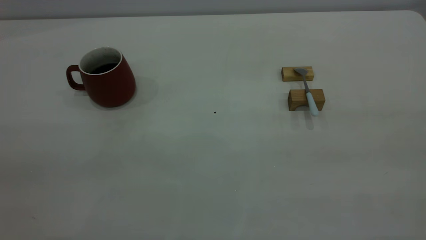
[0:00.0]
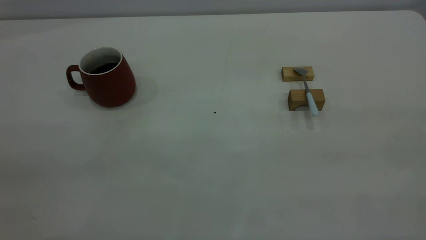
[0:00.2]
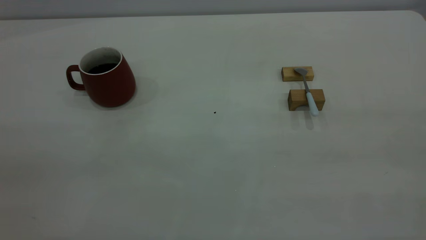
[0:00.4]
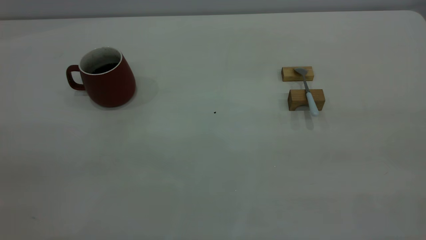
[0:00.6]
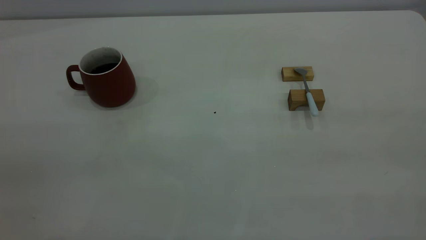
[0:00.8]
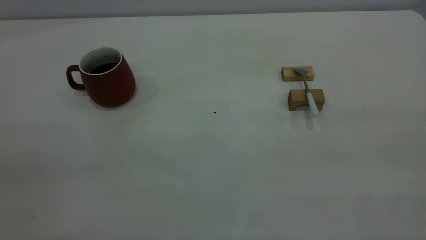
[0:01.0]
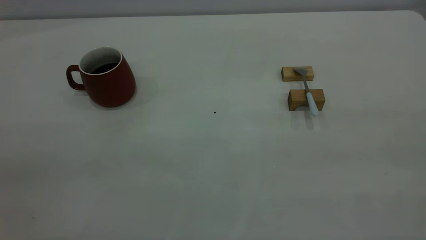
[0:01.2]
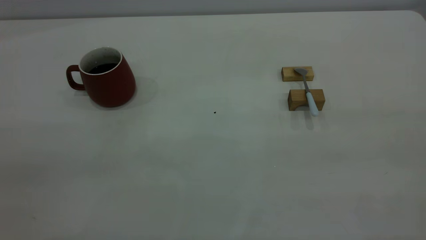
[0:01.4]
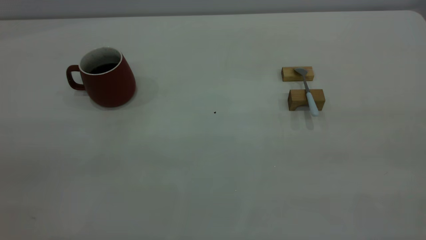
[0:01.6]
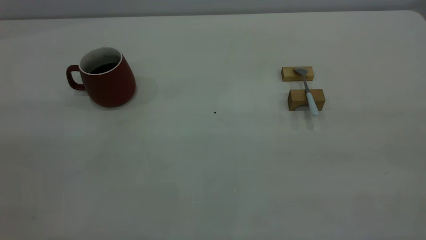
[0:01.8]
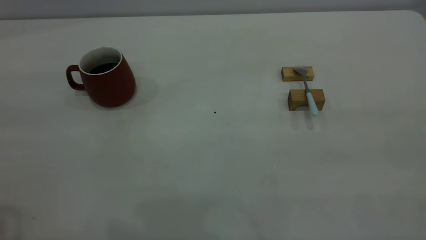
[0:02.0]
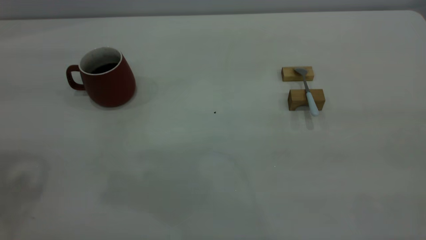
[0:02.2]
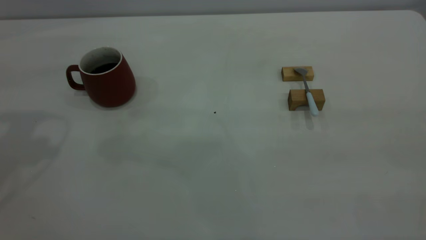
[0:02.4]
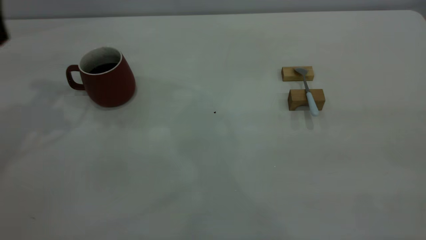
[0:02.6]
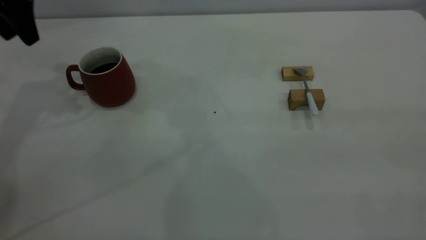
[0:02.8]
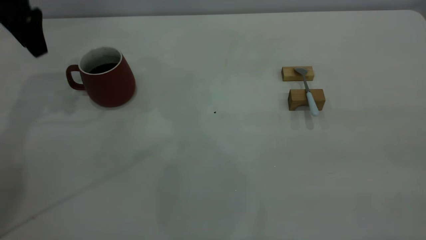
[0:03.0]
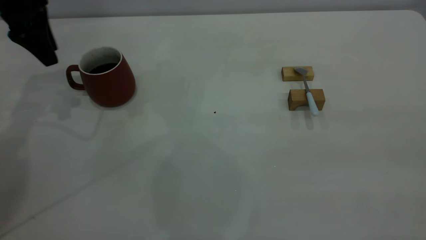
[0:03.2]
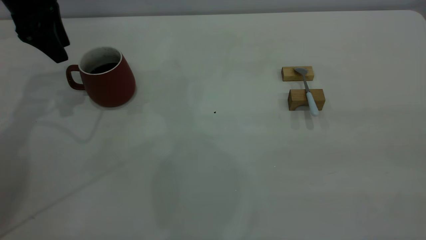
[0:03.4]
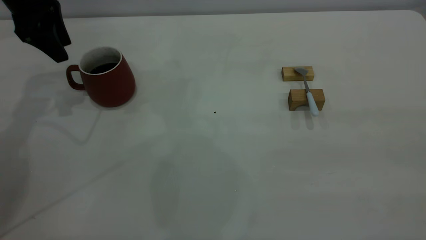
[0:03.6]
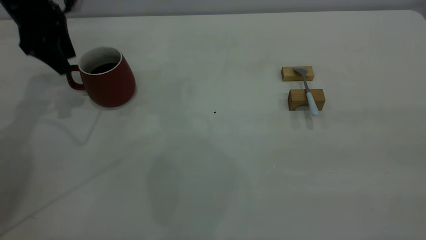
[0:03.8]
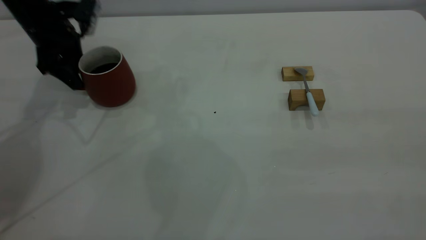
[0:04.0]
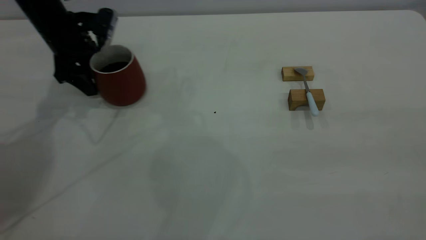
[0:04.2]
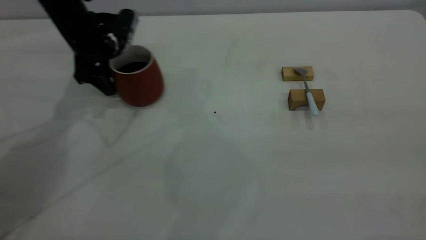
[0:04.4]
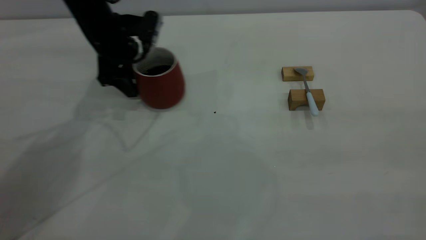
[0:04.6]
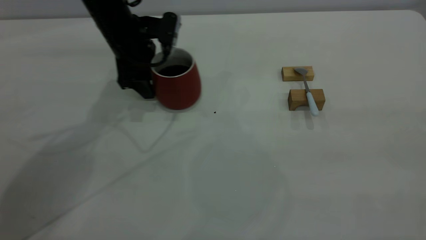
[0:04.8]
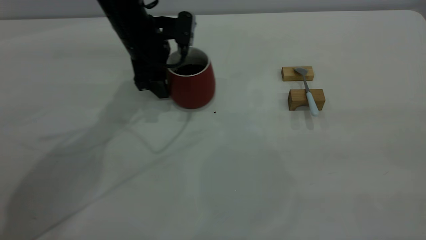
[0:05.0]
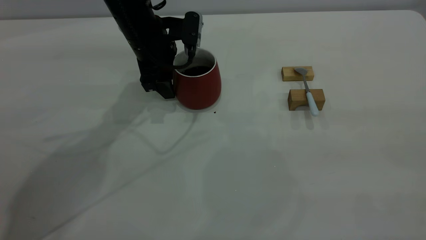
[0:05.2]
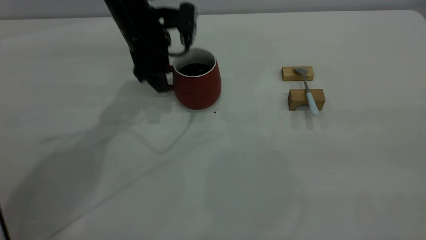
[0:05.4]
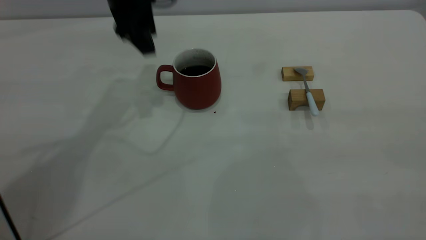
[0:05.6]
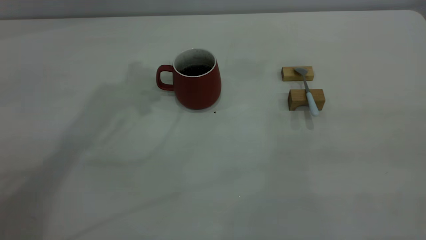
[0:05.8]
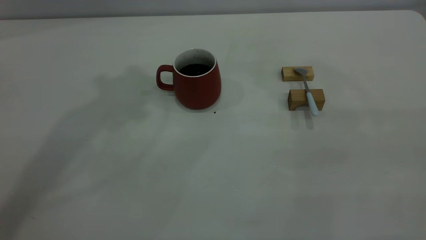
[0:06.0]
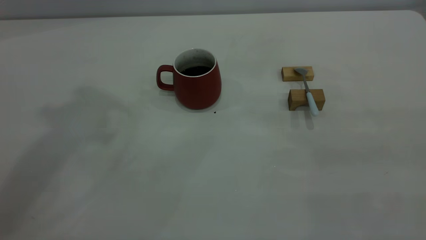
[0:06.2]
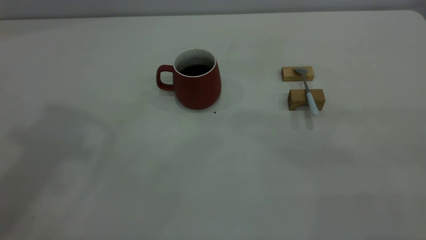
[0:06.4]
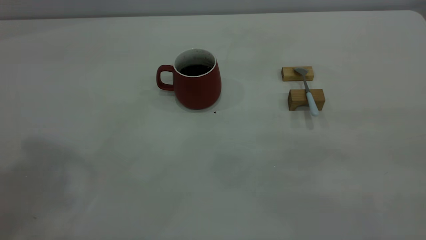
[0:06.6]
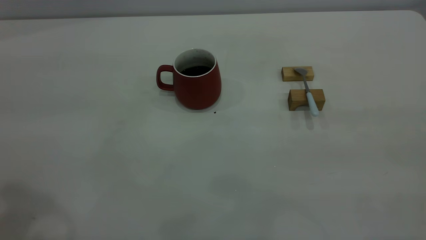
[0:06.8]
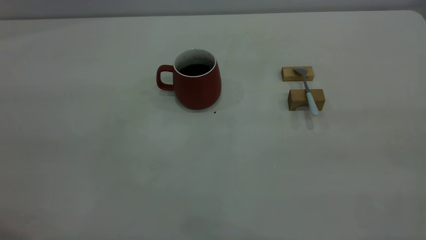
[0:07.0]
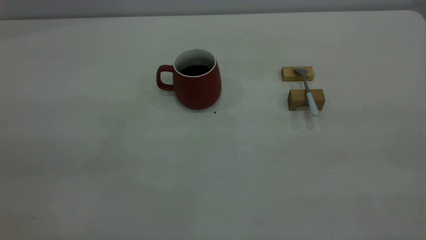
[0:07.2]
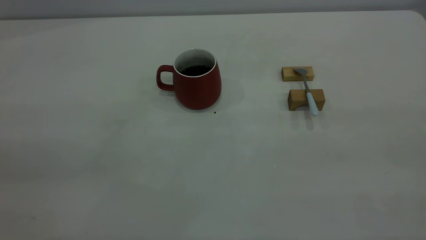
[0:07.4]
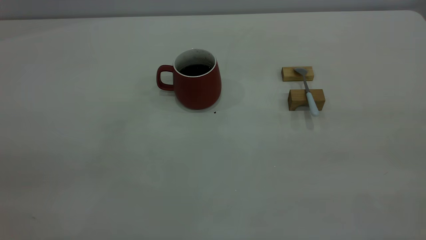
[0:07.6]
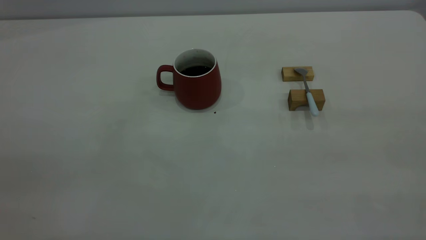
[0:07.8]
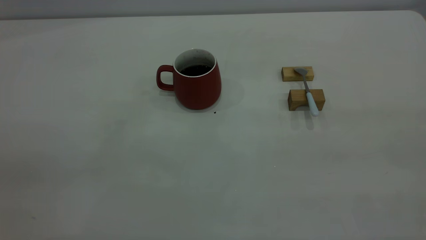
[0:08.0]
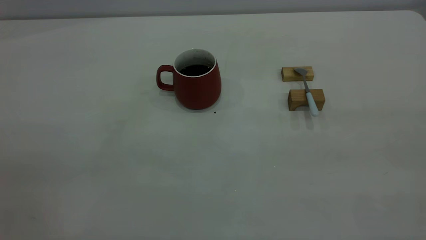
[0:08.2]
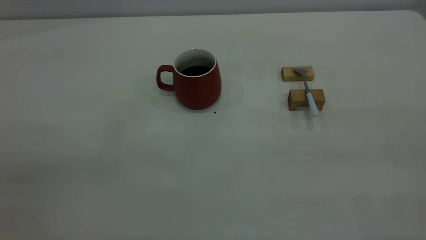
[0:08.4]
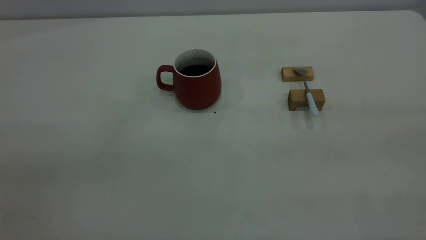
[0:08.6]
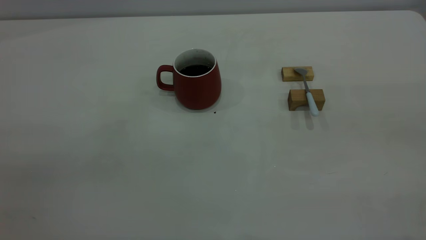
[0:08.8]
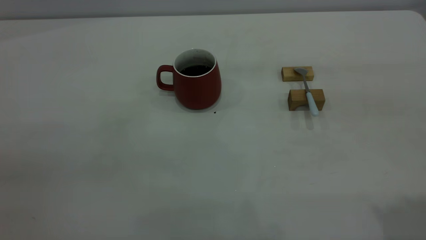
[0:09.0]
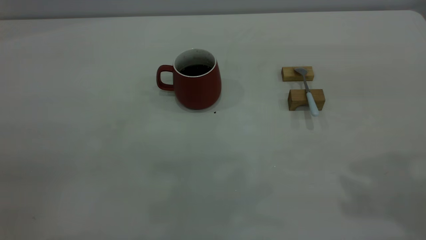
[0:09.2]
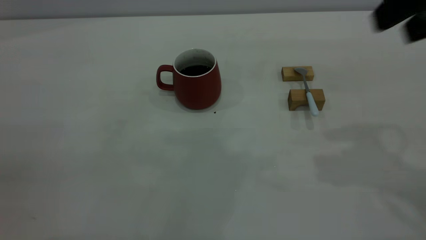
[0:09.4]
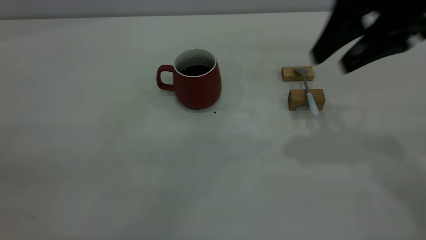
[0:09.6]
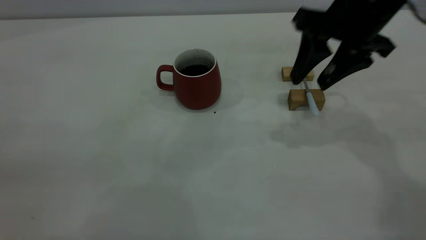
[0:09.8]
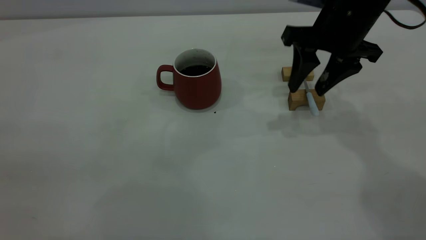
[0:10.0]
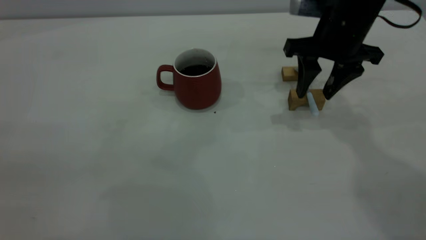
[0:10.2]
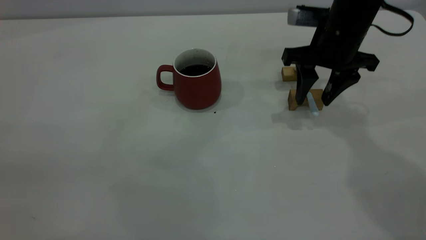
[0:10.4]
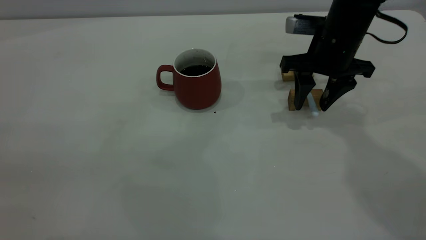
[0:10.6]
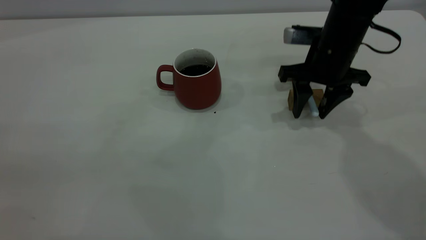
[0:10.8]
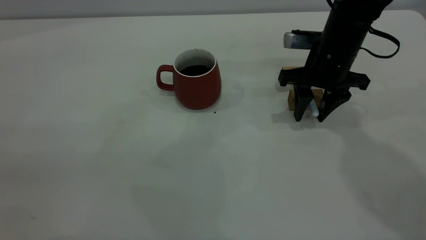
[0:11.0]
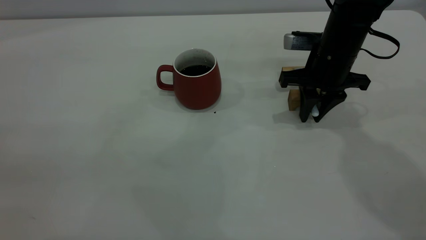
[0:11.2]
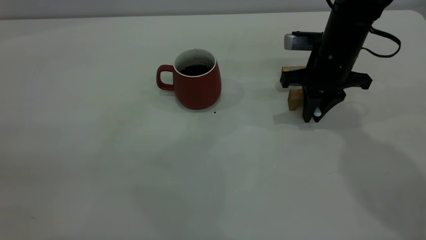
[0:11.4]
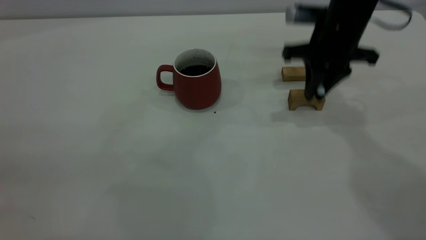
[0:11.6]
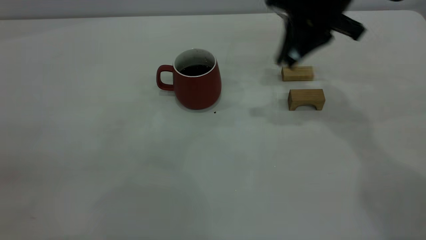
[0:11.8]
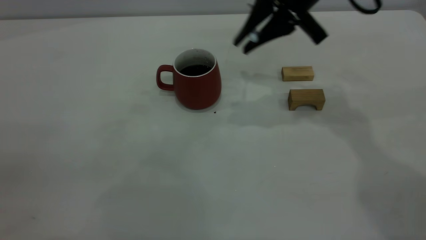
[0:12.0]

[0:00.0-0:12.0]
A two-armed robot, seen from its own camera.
Step, 0:00.0 to 0:05.4: Move the cup with coffee to the center of view.
Step, 0:05.6 to 0:11.6: Pick up the spoon.
0:01.6 to 0:03.0: The left gripper goes about 50 cm forward.
0:03.0 to 0:04.4: The left gripper goes approximately 15 cm downward and to the right.
0:04.4 to 0:06.0: The left gripper goes roughly 35 cm upward.
0:09.0 to 0:10.4: The right gripper heads forward and downward, covering roughly 35 cm.
0:10.4 to 0:12.0: The right gripper heads upward and to the left, covering about 10 cm, and closes up.

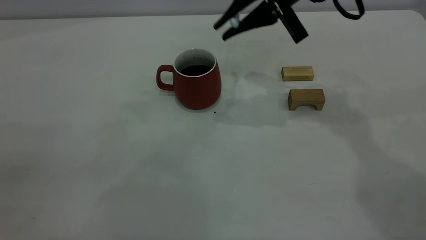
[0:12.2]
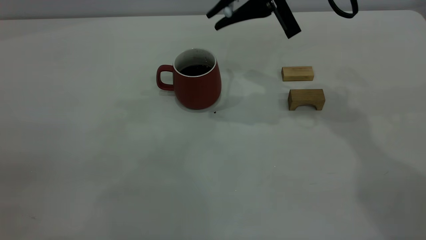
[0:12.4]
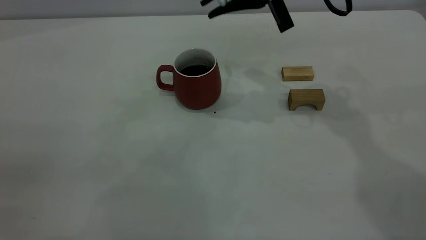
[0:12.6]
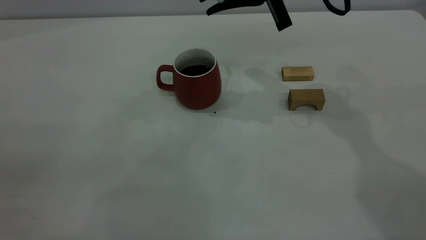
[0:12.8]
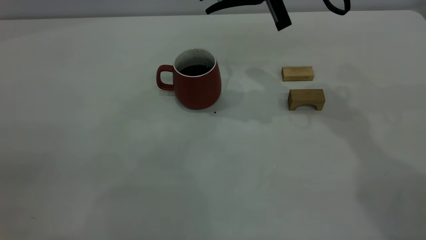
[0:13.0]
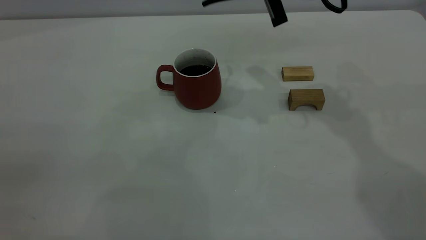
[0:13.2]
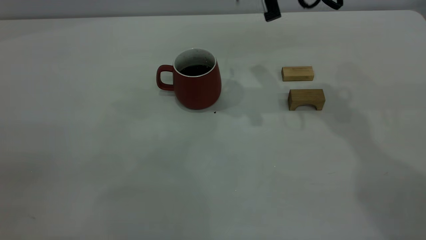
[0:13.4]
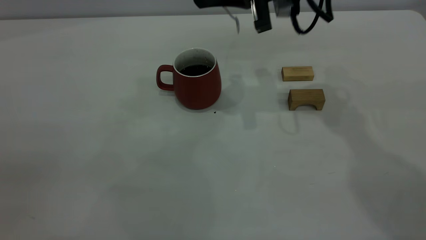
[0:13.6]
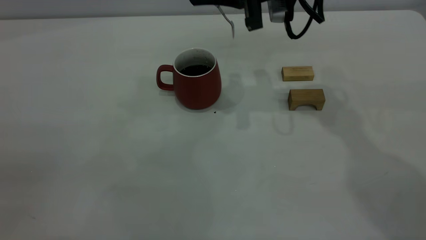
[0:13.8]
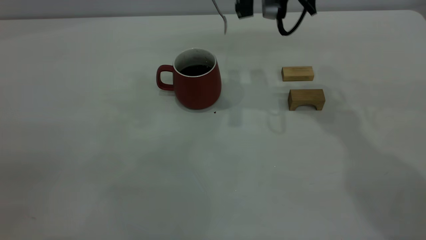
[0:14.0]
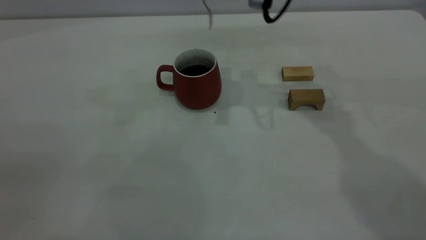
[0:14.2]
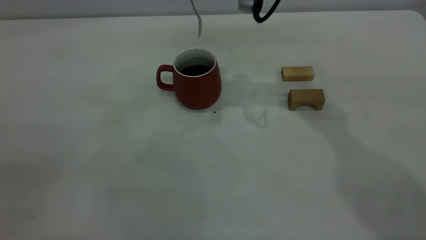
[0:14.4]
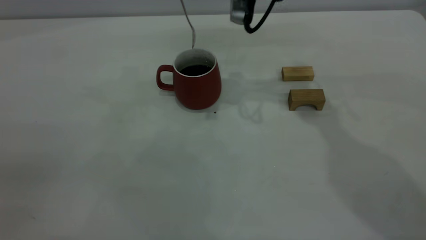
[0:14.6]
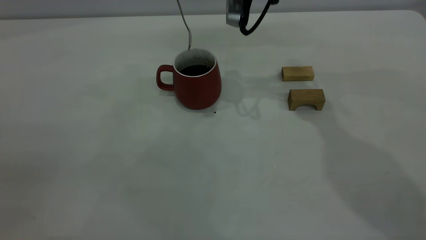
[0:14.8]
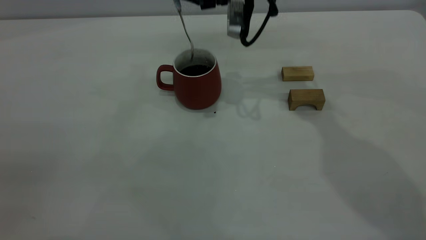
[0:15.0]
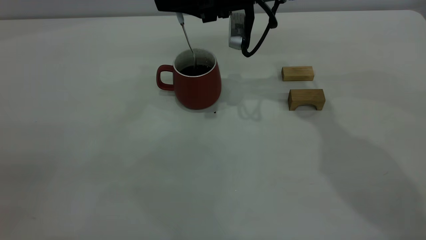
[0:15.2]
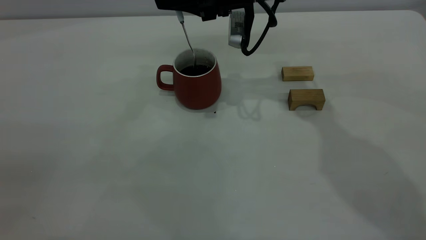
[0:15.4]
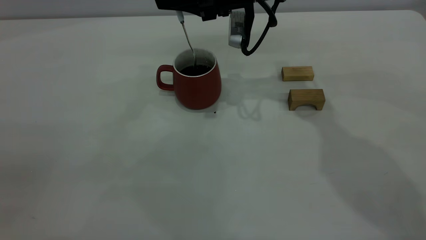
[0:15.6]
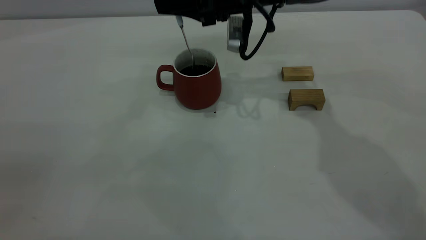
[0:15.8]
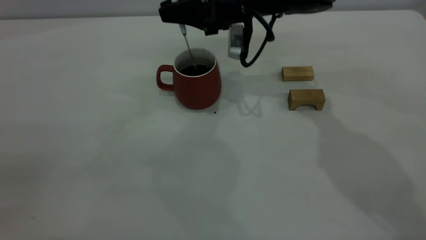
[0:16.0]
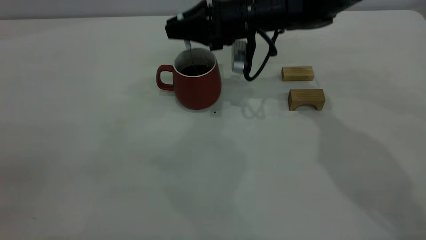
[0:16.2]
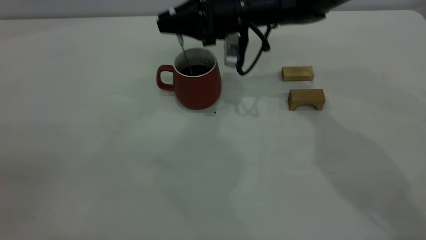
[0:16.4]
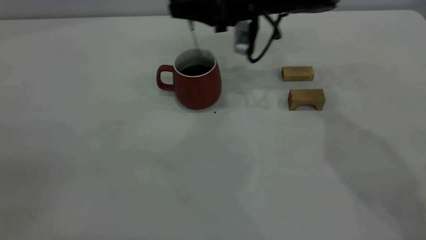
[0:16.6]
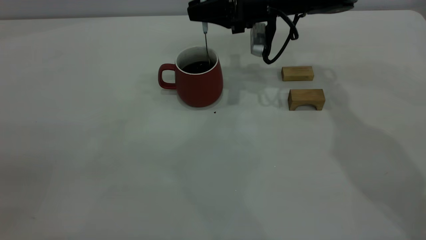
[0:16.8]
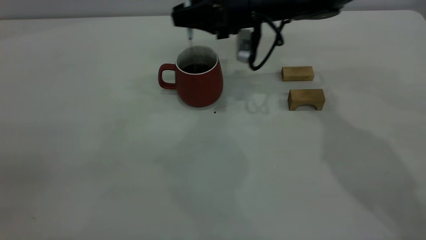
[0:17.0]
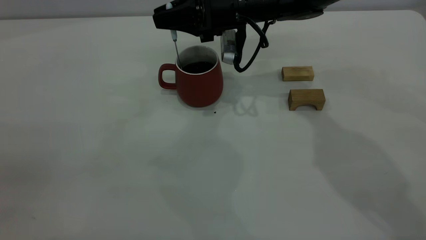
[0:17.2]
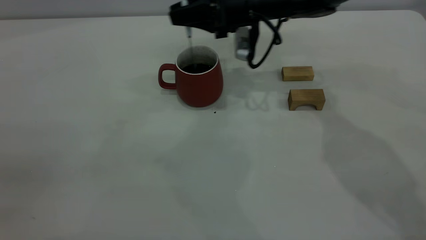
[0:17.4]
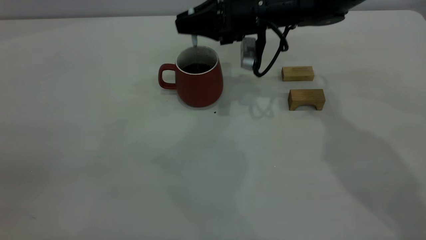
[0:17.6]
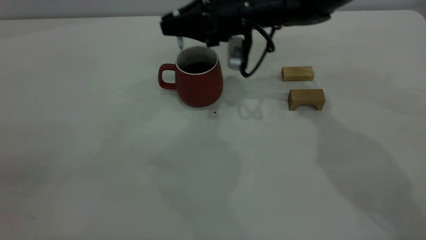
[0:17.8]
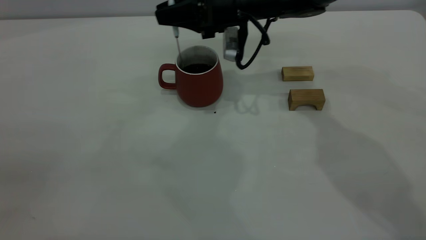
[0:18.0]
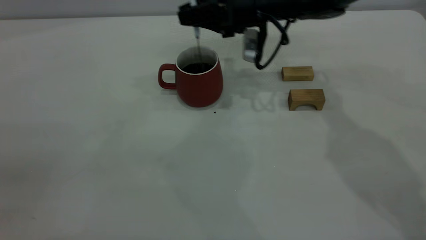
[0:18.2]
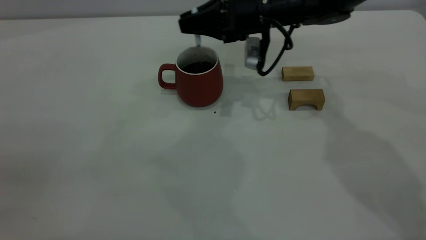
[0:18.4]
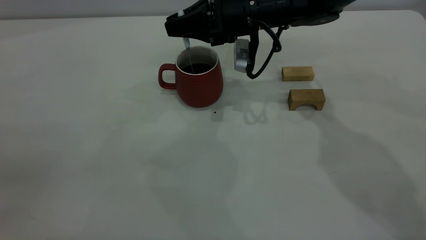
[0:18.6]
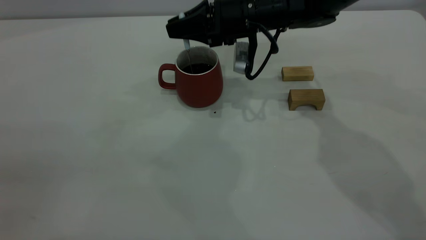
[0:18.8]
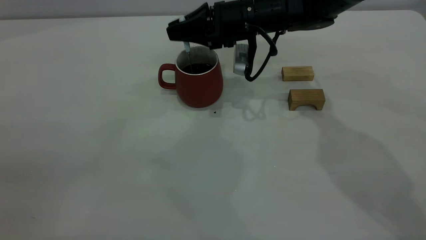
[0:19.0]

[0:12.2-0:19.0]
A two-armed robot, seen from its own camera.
0:13.6 to 0:15.0: The right gripper travels to the left by roughly 5 cm.
0:15.0 to 0:16.2: The right gripper is displaced downward by approximately 5 cm.
0:16.2 to 0:19.0: The grippers stay close to where they were, moving slightly.
